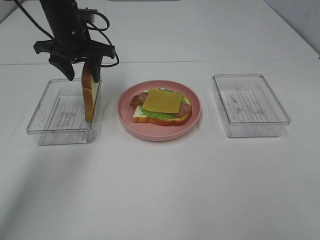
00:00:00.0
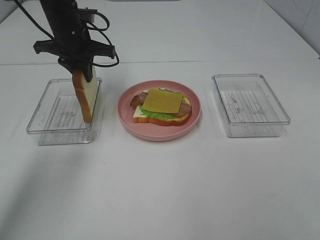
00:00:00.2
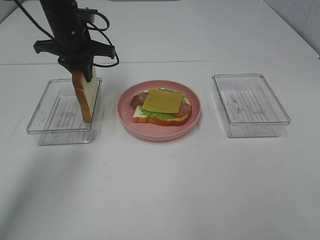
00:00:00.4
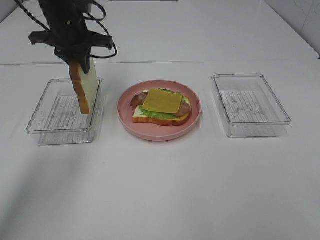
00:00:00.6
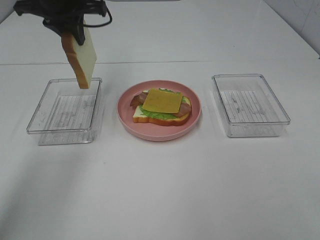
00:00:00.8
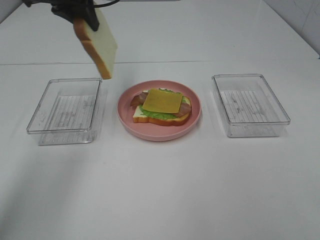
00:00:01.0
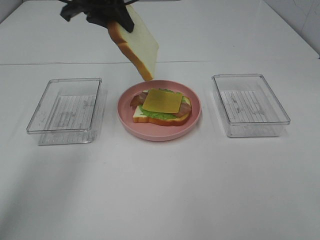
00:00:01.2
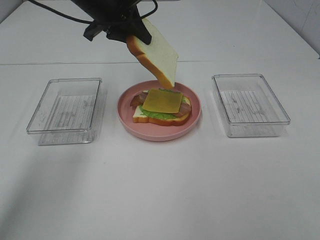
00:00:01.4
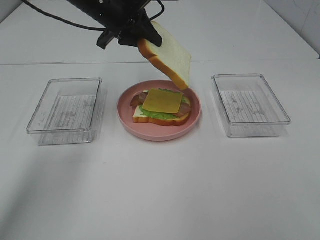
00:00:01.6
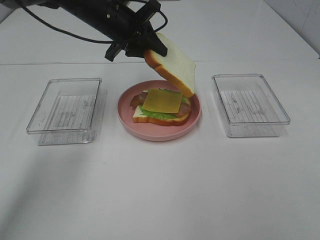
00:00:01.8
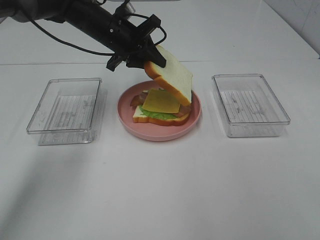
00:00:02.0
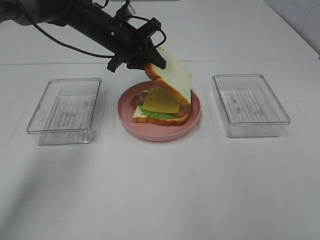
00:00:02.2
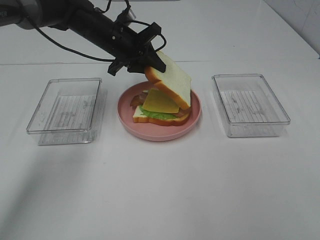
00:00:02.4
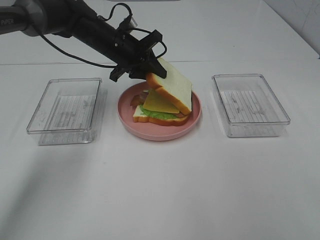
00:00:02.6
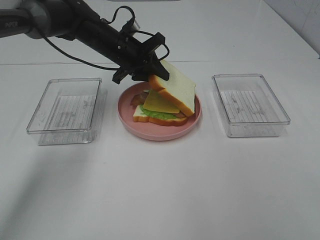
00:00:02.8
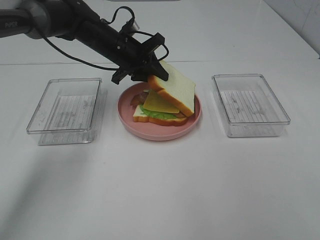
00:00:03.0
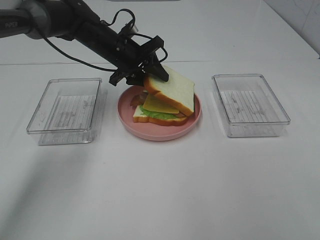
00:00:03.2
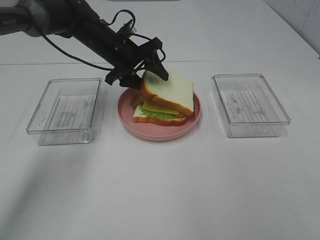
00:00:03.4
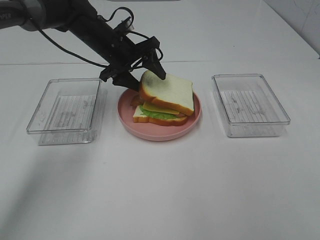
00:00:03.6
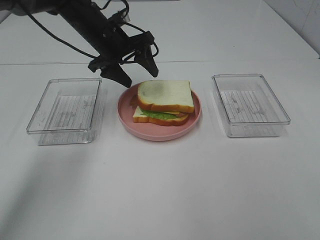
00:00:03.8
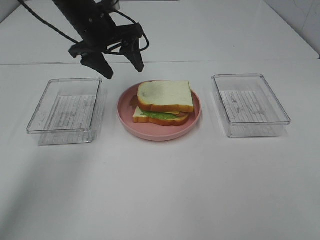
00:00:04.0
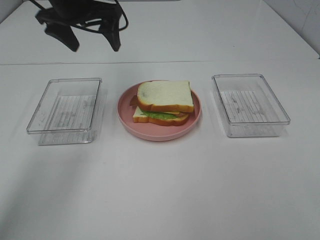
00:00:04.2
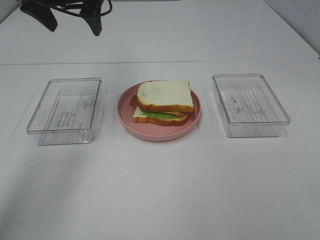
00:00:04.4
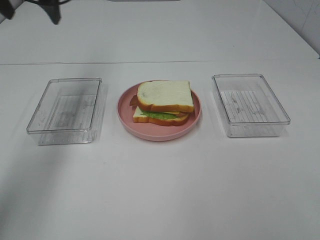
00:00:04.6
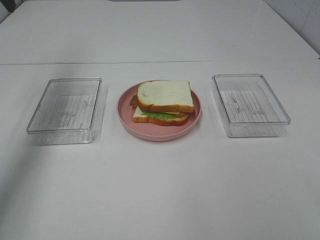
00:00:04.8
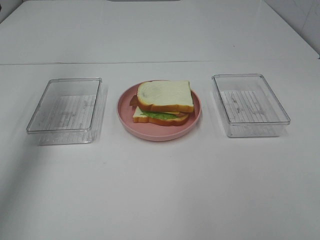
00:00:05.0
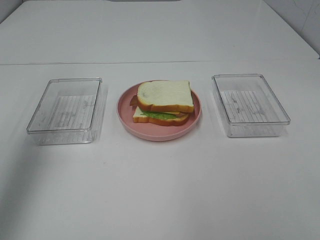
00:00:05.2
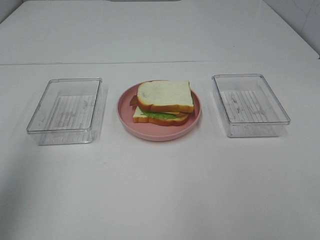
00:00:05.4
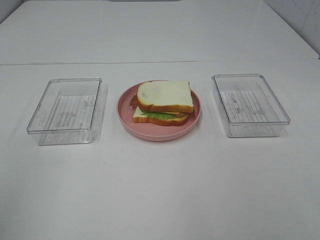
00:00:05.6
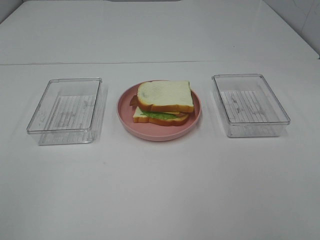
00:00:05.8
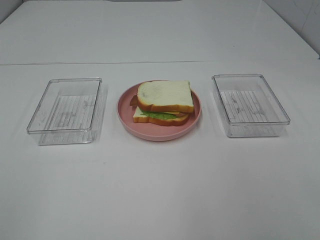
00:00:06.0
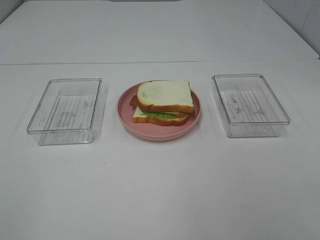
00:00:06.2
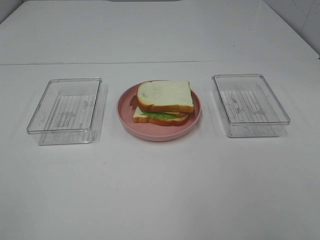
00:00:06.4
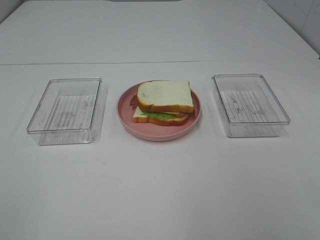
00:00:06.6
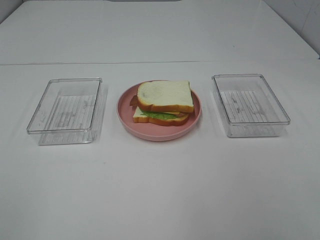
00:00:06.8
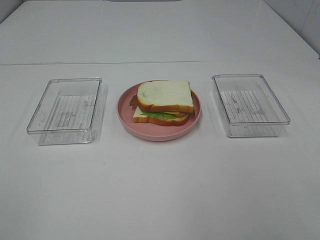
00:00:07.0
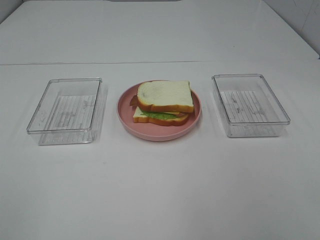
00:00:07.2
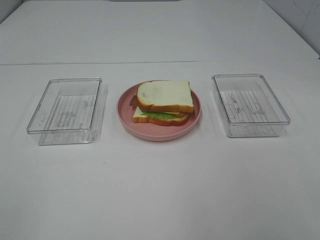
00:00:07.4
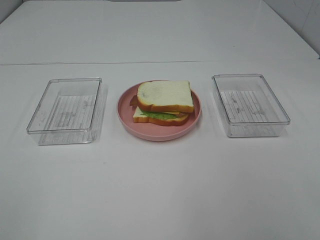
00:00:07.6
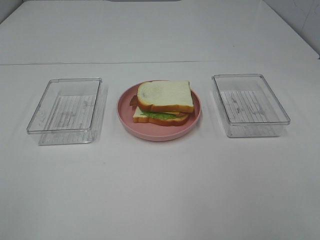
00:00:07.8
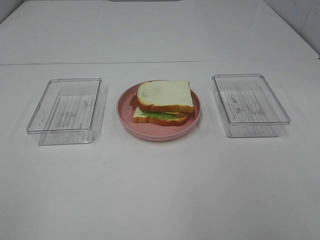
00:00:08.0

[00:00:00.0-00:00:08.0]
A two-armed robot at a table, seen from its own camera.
Task of the whole recording: Make sandwiches.
Step, 00:00:00.4 to 00:00:04.0: Left hand:place the bread slice on the cheese slice.
00:00:00.0 to 00:00:01.6: The left gripper moves to the right, about 5 cm.
00:00:01.6 to 00:00:03.2: The left gripper is displaced downward by some 10 cm.
00:00:03.2 to 00:00:04.8: The left gripper moves to the left and upward, roughly 30 cm, and opens up.
00:00:04.8 to 00:00:06.4: The left gripper heads backward, covering roughly 50 cm.
00:00:06.4 to 00:00:08.0: Both grippers stay put.
